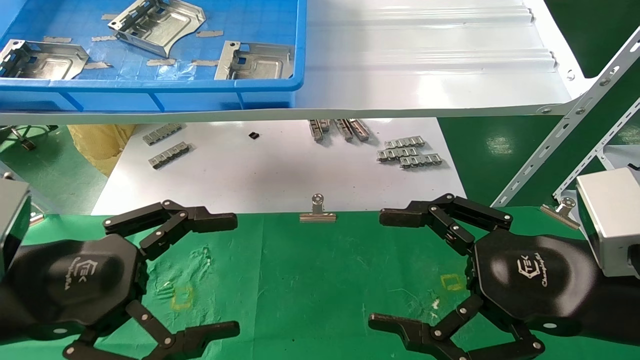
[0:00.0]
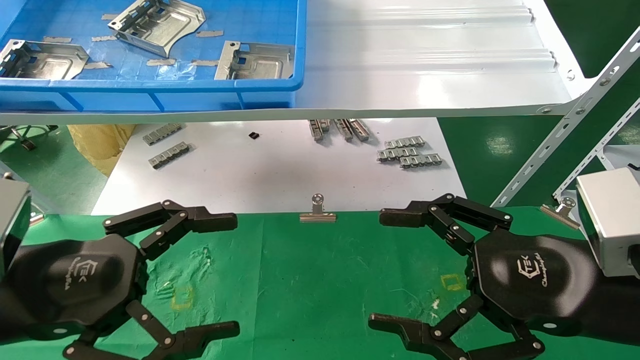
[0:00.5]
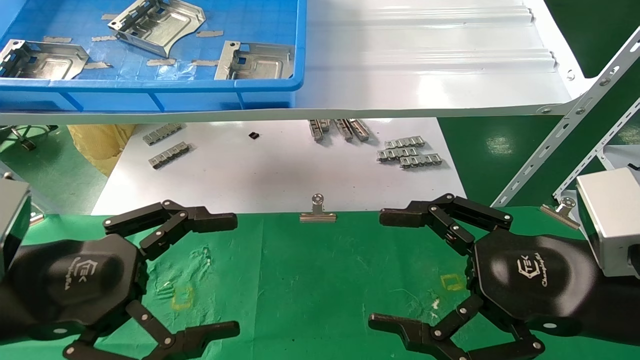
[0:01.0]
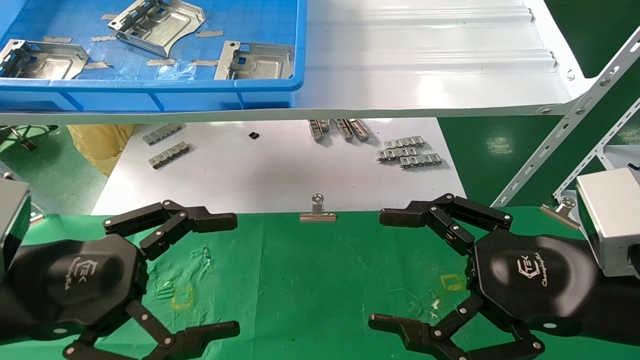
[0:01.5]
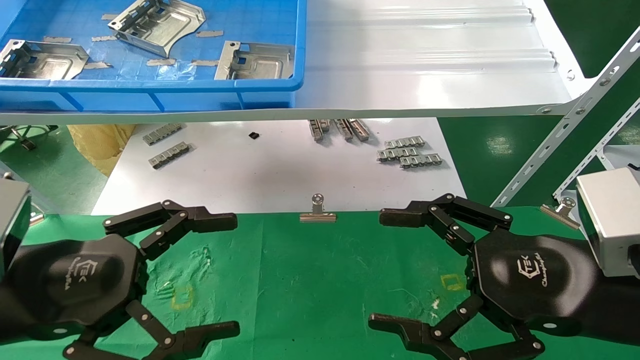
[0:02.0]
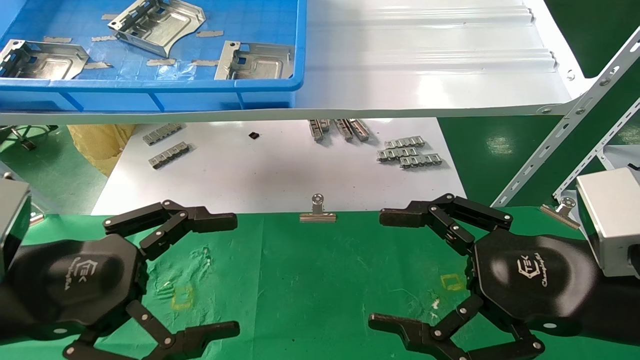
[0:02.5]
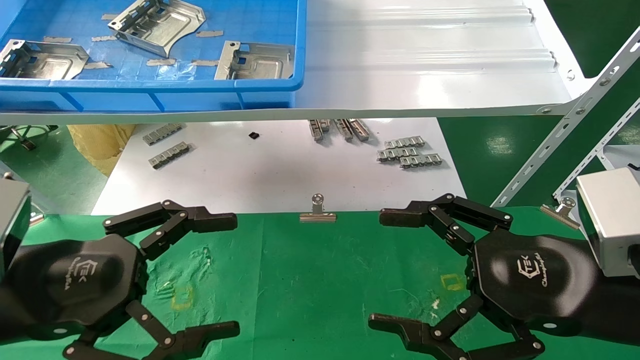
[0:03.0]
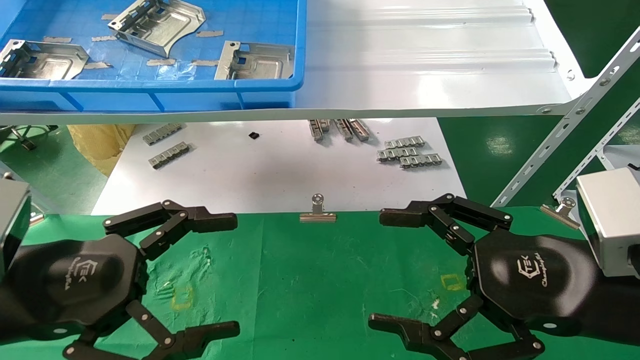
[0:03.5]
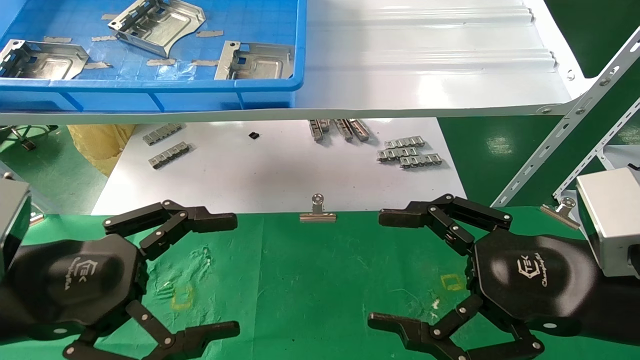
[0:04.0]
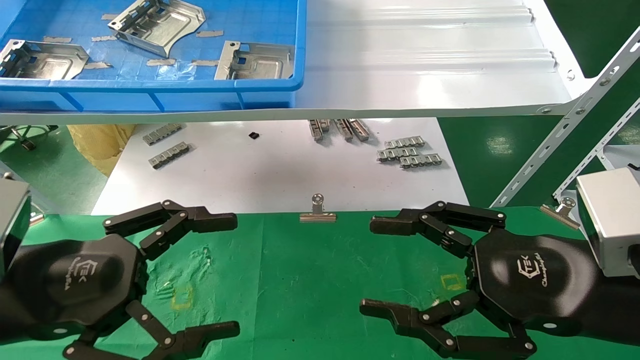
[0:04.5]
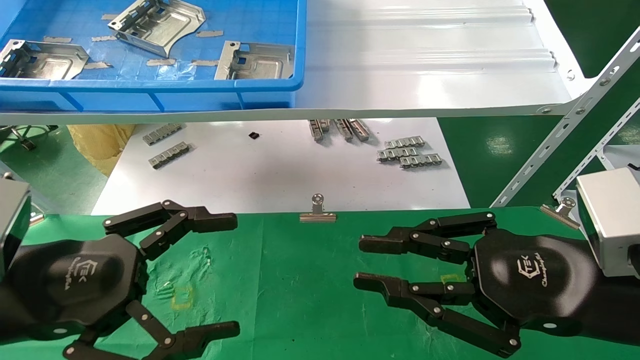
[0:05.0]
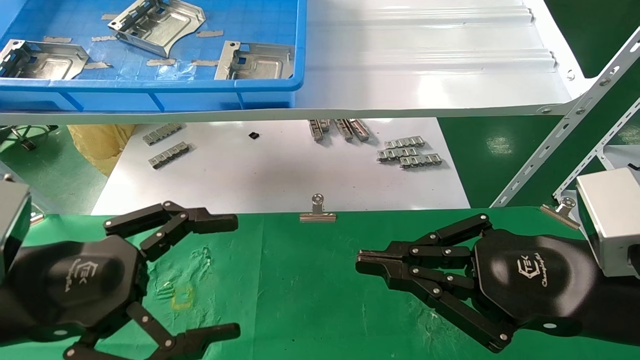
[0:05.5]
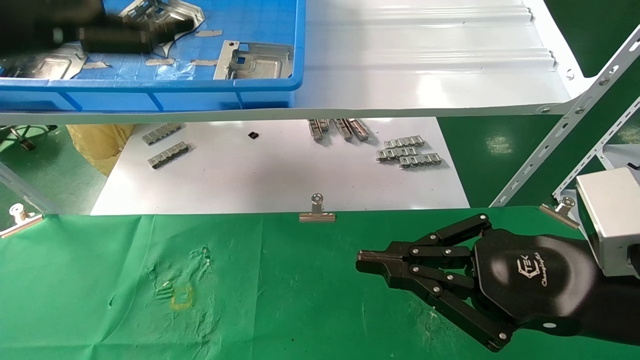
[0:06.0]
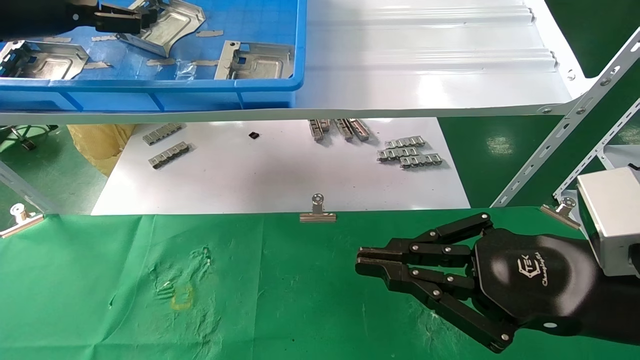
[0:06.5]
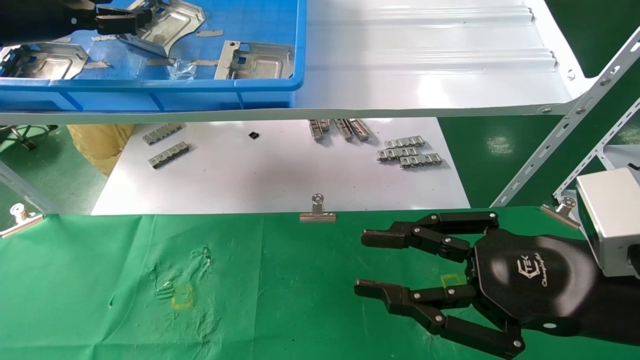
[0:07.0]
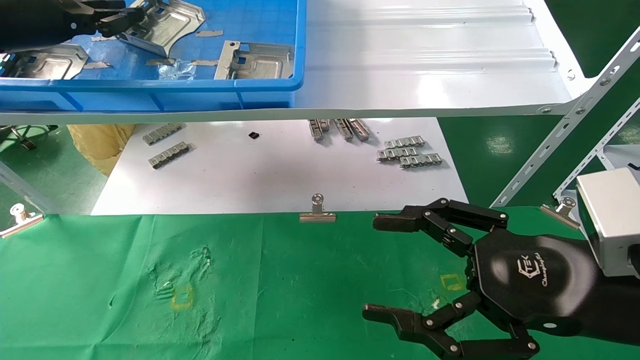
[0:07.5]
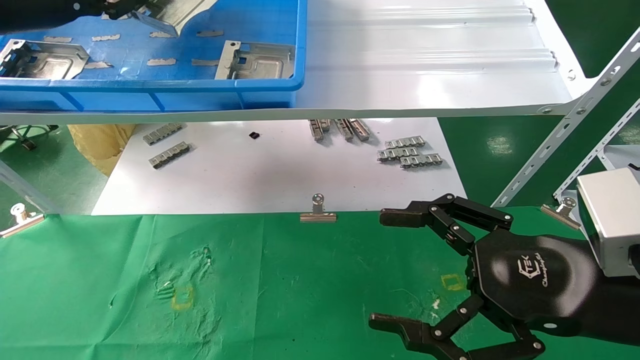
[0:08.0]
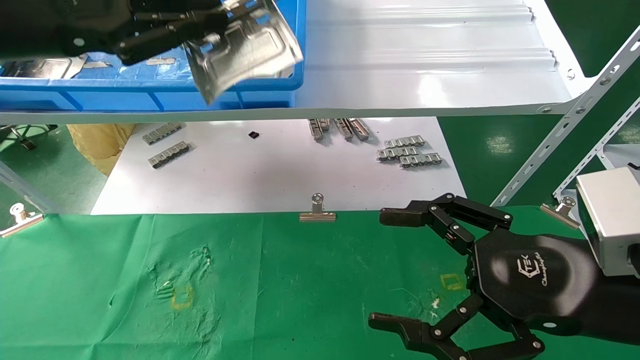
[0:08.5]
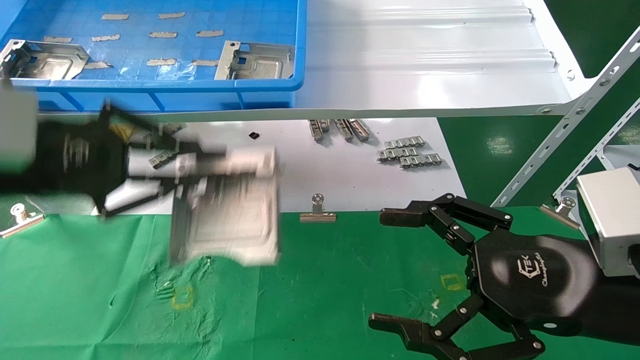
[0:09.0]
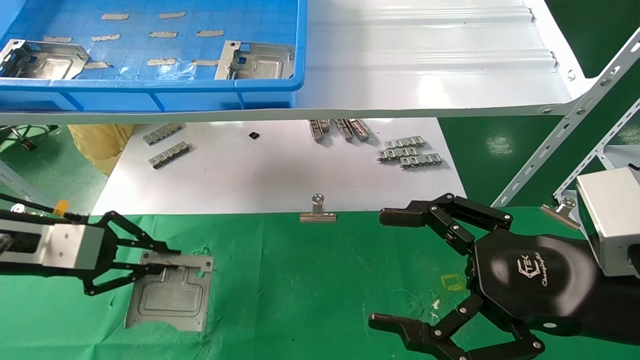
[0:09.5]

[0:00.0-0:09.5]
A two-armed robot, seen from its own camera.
Task of the whole recording: use the mechanical arm to pick up the parts and place them on the table.
Step, 0:06.0 to 0:07.5: Pick up the hard drive bracket from the feeding area.
0:00.0 to 0:04.0: Both grippers stay about where they are.
0:04.0 to 0:05.5: The right gripper closes up.
0:05.5 to 0:07.5: The right gripper opens. Meanwhile the left gripper moves forward, upward and to the left, some 30 cm, and closes up.
0:07.5 to 0:09.5: The left gripper is displaced downward and backward by approximately 25 cm.

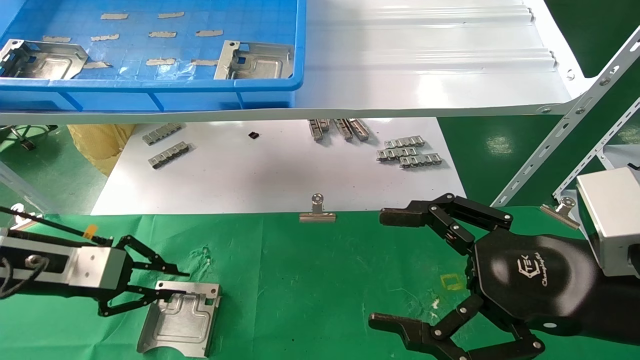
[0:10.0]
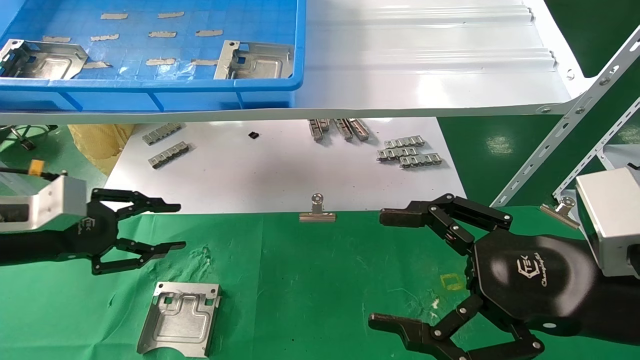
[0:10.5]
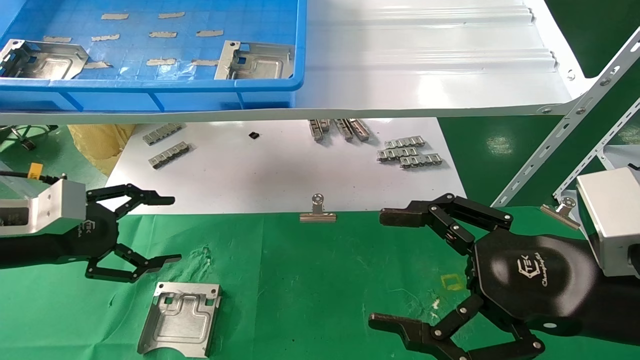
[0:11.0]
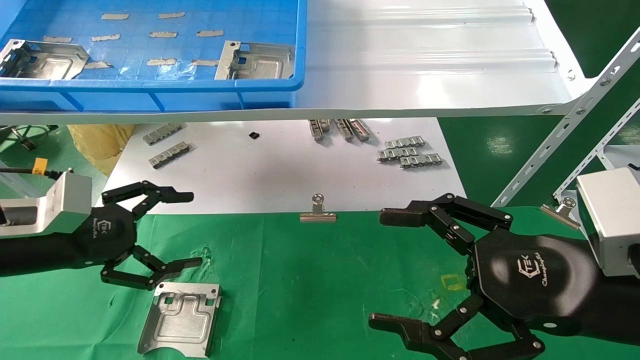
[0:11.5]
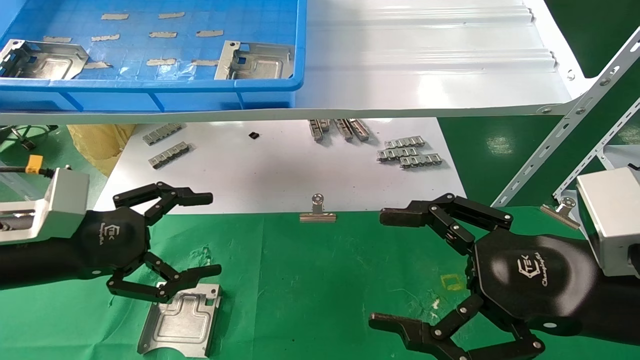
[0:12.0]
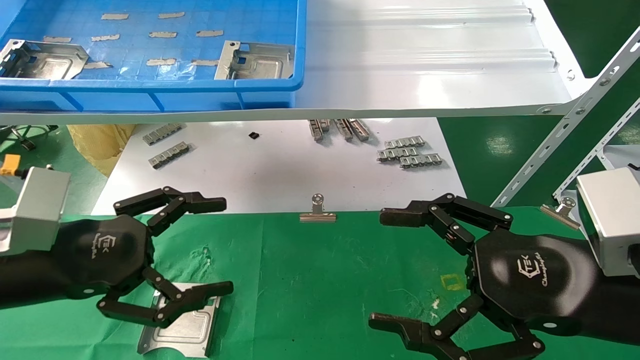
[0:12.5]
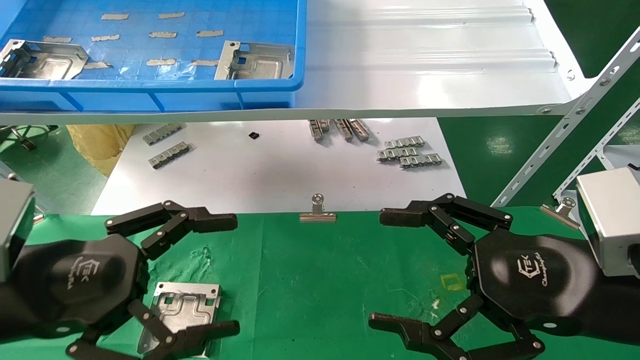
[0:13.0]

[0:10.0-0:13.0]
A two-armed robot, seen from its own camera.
Task of the whole recording: use the mechanical arm to pick up the parts and place them on the table.
0:10.0 to 0:11.5: The left gripper opens its fingers.
0:11.5 to 0:13.0: The left gripper travels backward and to the right by some 10 cm.

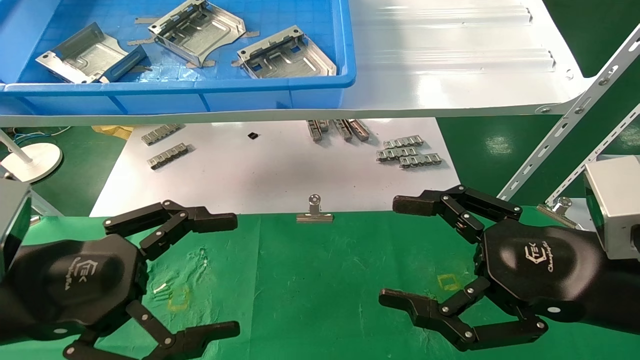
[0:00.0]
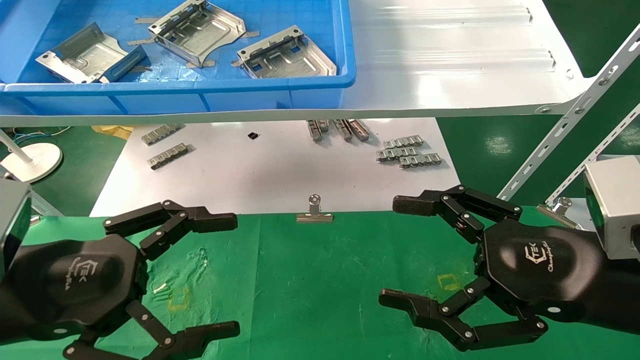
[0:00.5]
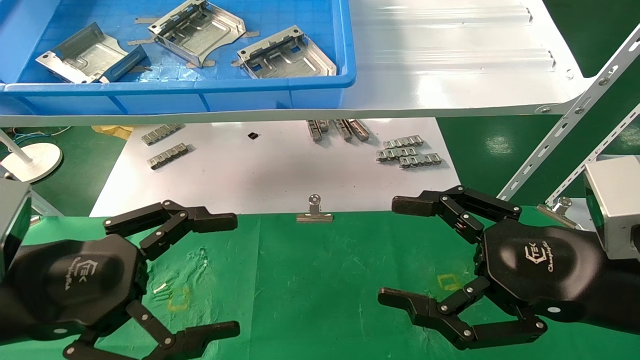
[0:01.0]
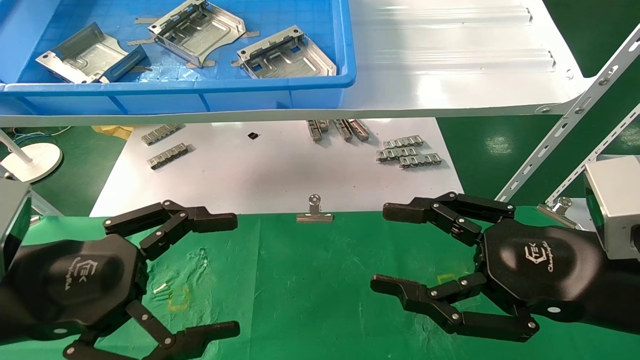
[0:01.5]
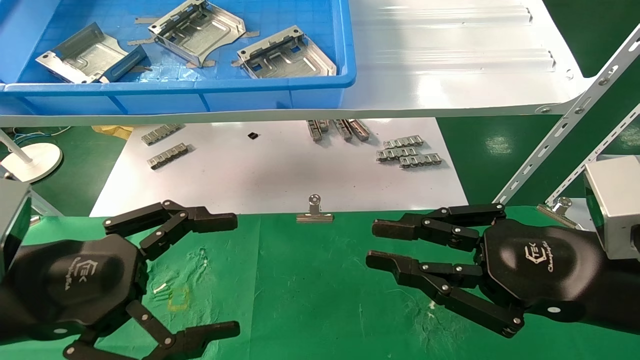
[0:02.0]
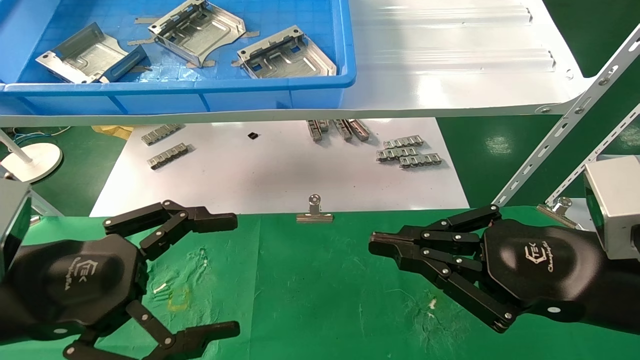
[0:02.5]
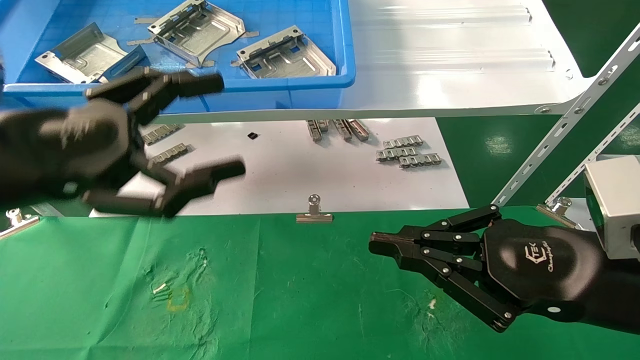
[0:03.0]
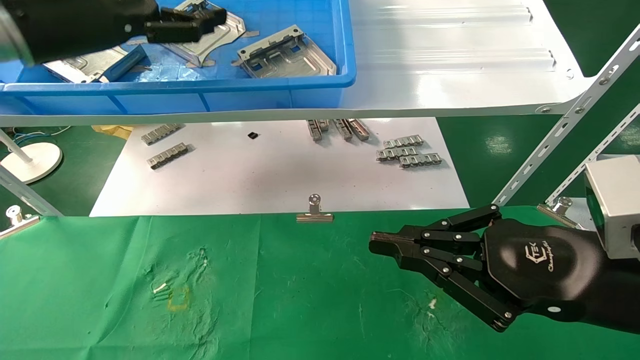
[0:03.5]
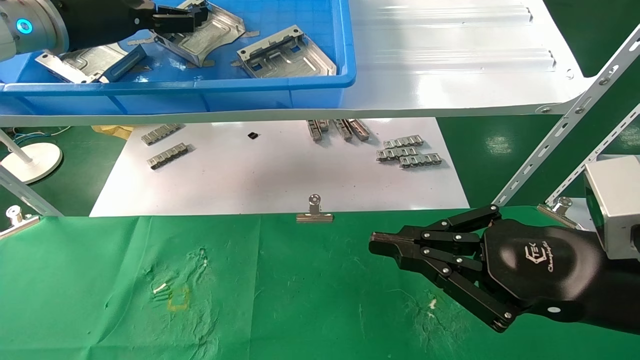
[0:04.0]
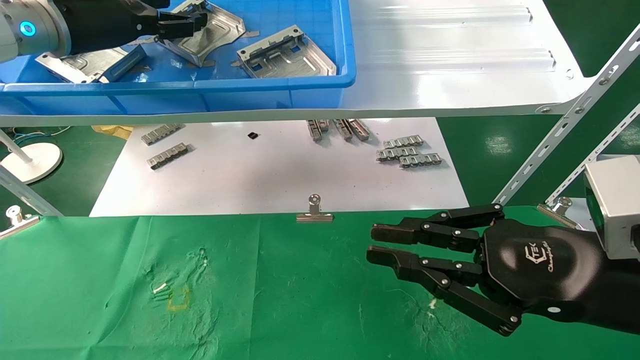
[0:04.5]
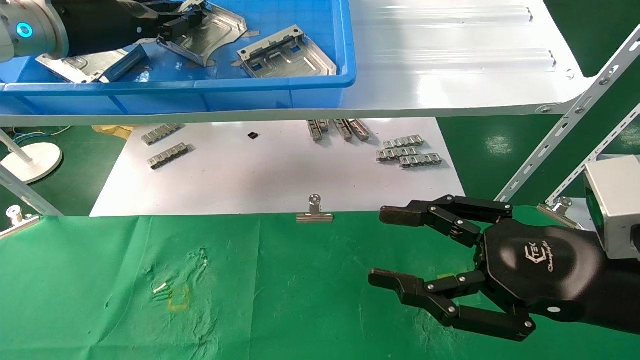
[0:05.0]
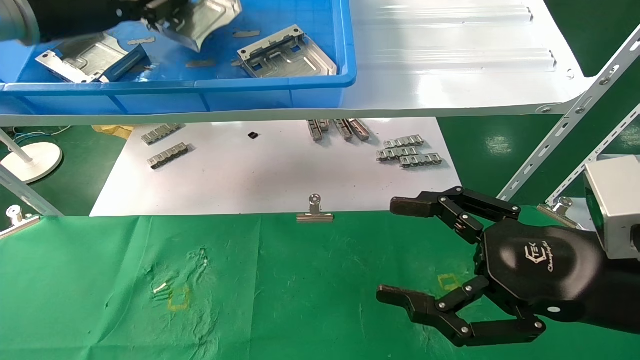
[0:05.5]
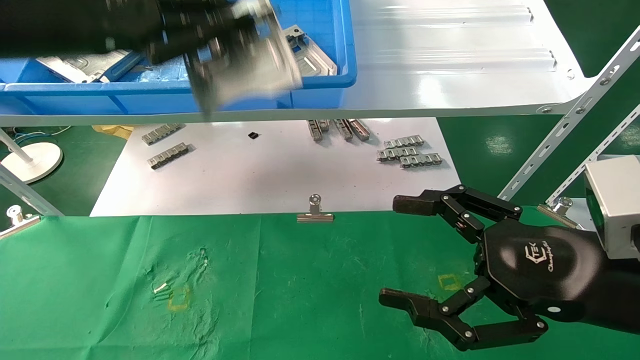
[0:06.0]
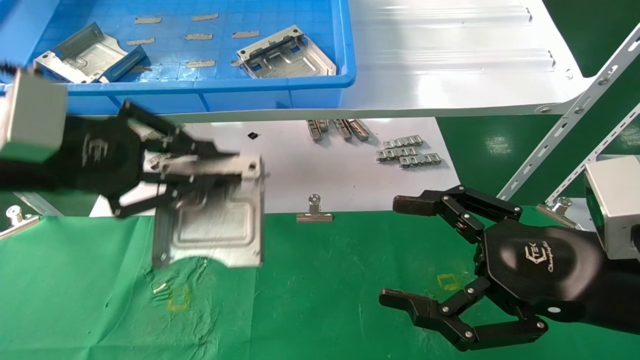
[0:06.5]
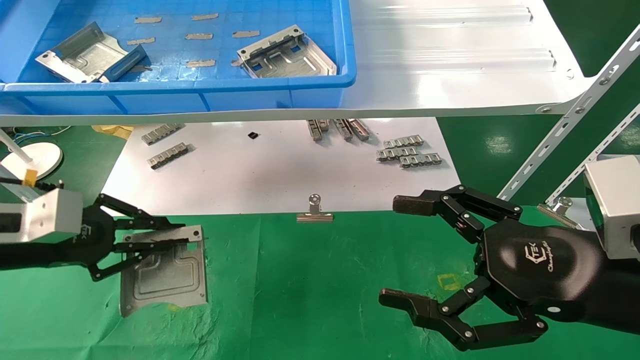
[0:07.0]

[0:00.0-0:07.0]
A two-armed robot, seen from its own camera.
Task of the whole recording: use the mechanical arm to pick up the parts and place them on the table.
Step, 0:01.5 to 0:05.0: Pick up the hard drive bracket from the feeding area.
0:00.0 to 0:02.0: The right gripper closes.
0:02.0 to 0:03.5: The left gripper heads upward and forward, covering about 25 cm. Meanwhile the right gripper closes.
0:03.5 to 0:05.0: The left gripper is displaced forward by approximately 5 cm, and closes up. The right gripper opens up.
0:05.0 to 0:07.0: The left gripper heads downward and backward, covering about 25 cm. Meanwhile the right gripper opens.
